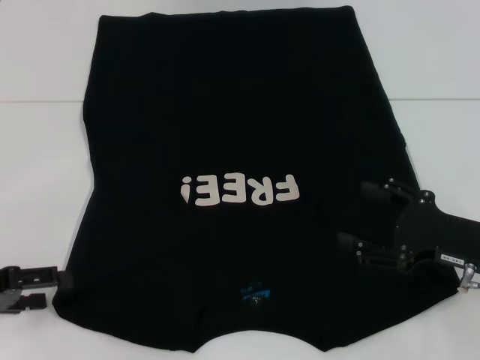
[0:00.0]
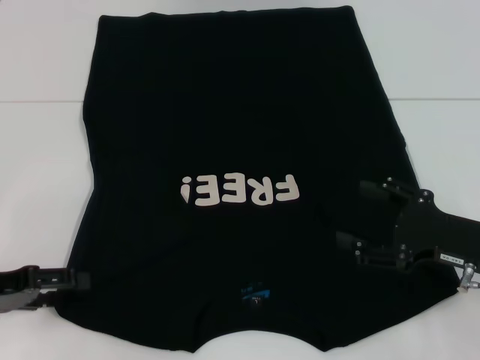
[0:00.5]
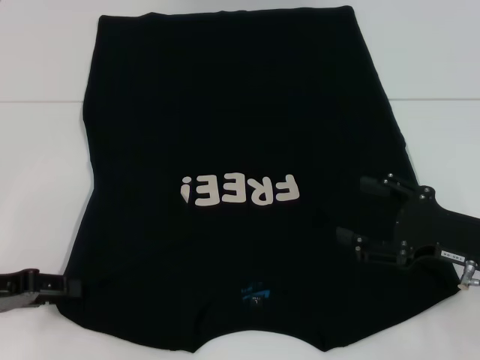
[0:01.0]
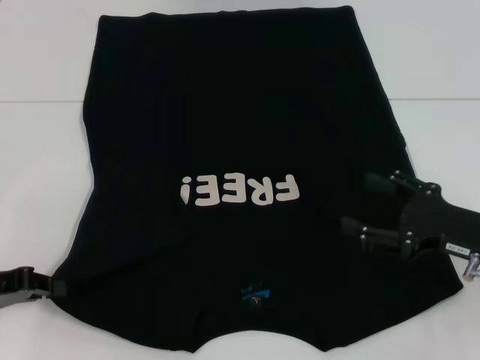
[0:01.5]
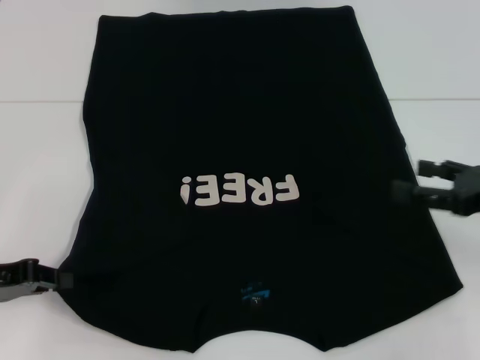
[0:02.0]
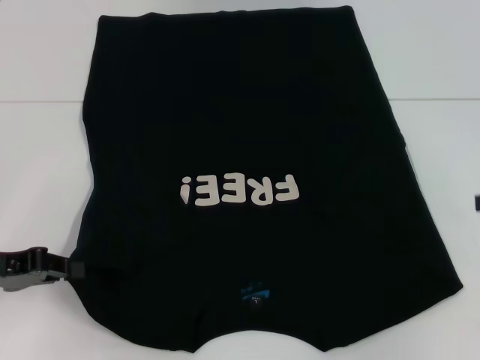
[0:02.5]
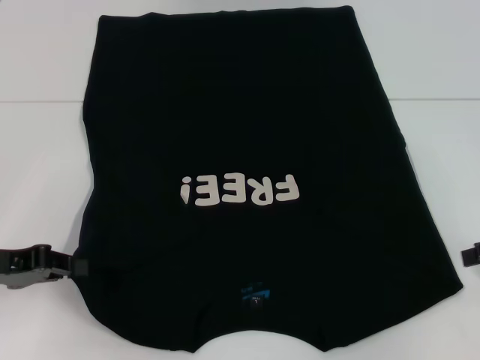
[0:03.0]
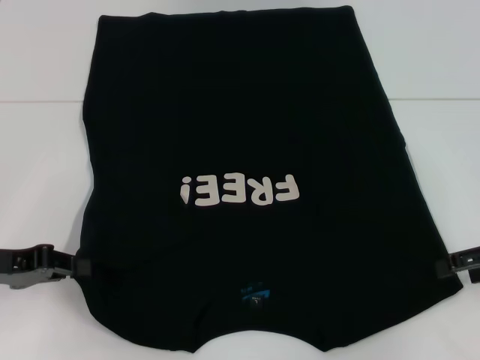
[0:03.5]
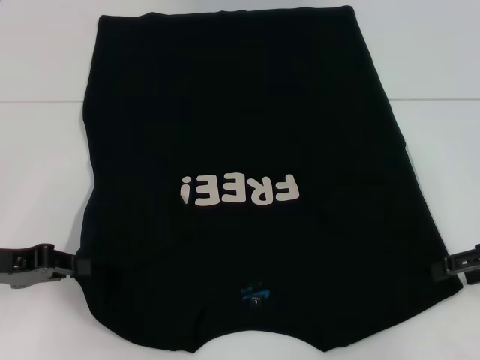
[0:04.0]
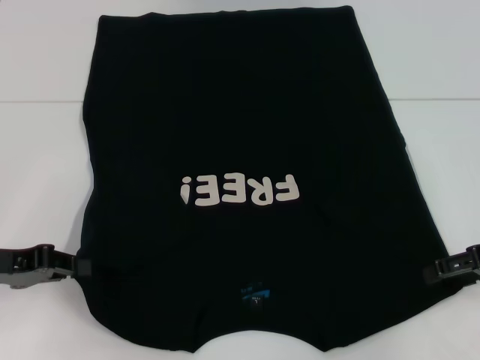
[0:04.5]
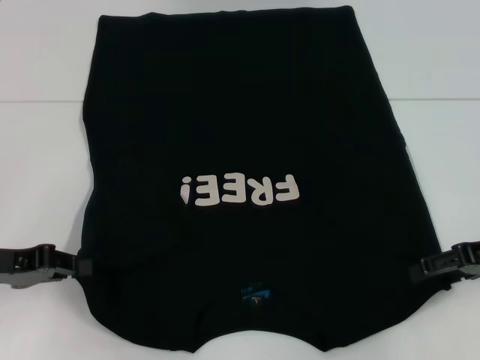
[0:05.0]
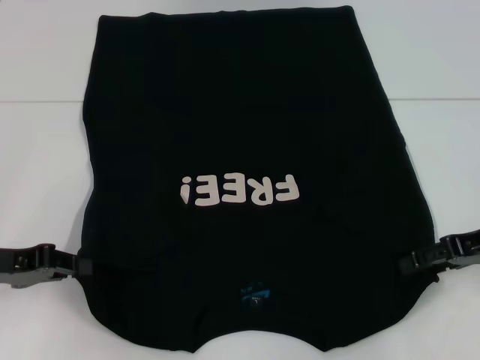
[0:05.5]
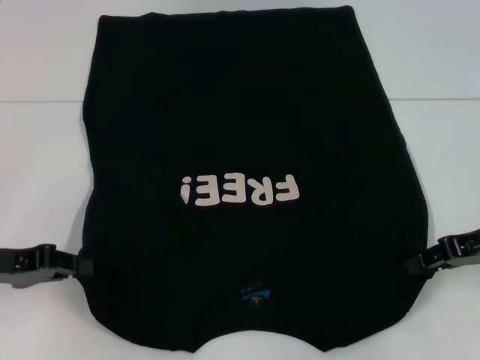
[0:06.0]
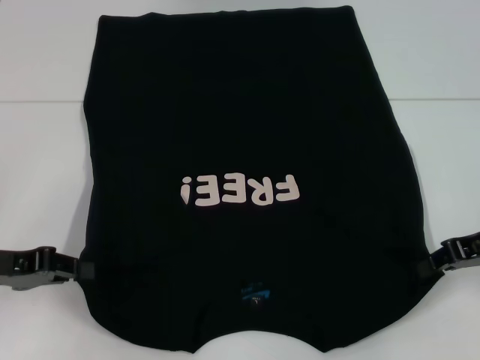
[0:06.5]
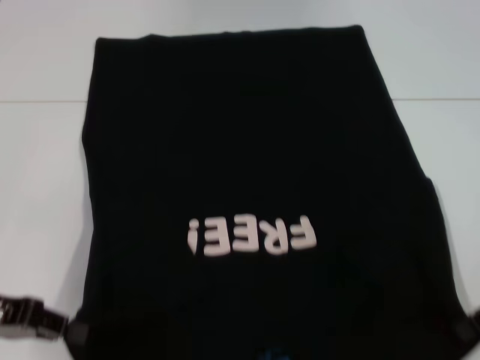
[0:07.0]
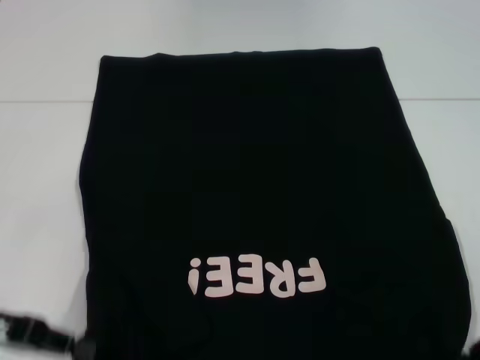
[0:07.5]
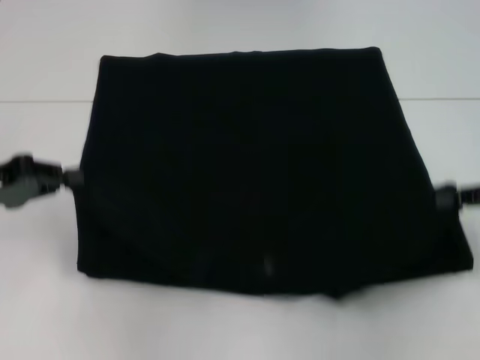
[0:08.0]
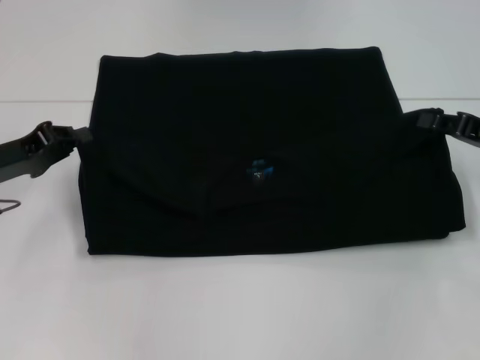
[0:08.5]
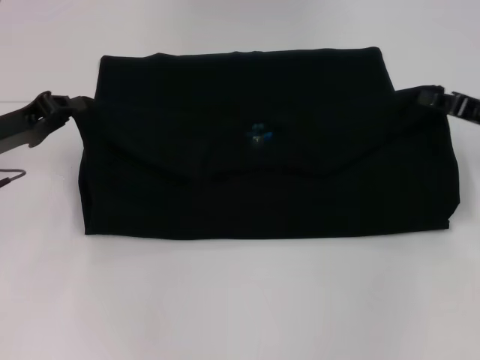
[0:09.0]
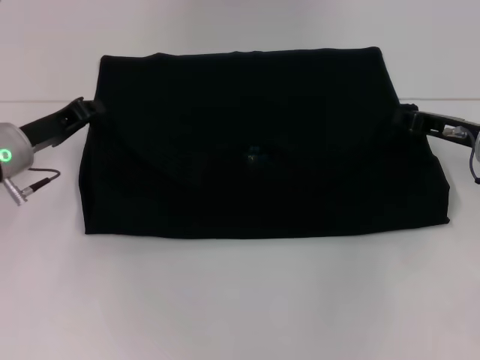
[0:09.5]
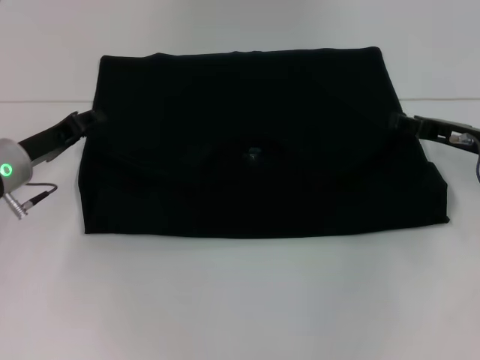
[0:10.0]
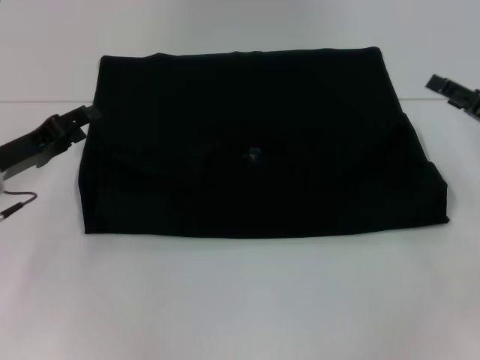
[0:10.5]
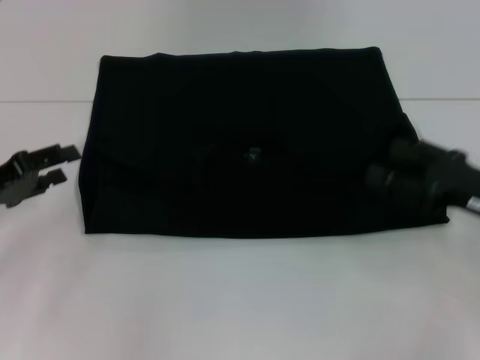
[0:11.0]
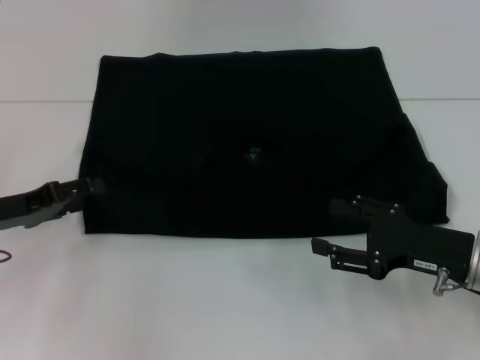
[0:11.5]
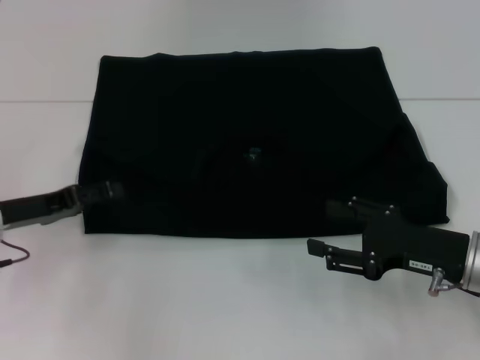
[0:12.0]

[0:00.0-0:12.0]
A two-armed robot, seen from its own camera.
Step, 0:02.0 to 0:06.5: Grab the bottom right corner with your right hand.
Step, 0:07.0 to 0:10.0: Fold the clothes with your left hand.
Step, 0:07.0 to 0:10.0: Fold the clothes with your right hand.
0:00.0 to 0:02.0: The left gripper closes its fingers. Meanwhile the right gripper shifts roughly 5 cm to the right.
0:04.0 to 0:06.0: The right gripper closes its fingers.
0:06.0 to 0:08.0: The left gripper ends up approximately 5 cm from where it was, while the right gripper shifts by approximately 5 cm, and closes.
0:08.0 to 0:10.0: The left gripper travels forward, to the right and downward by roughly 10 cm. Meanwhile the right gripper moves forward, to the left and downward, approximately 10 cm.
0:10.0 to 0:12.0: The right gripper goes roughly 10 cm backward, and opens. Meanwhile the left gripper goes about 5 cm backward, and opens its fingers.

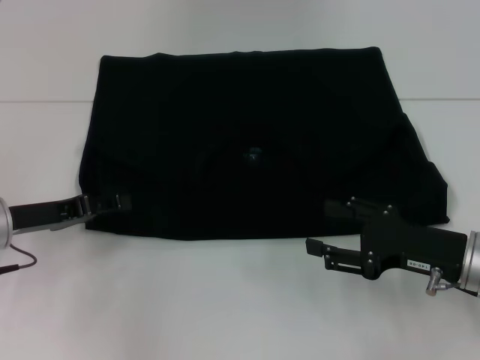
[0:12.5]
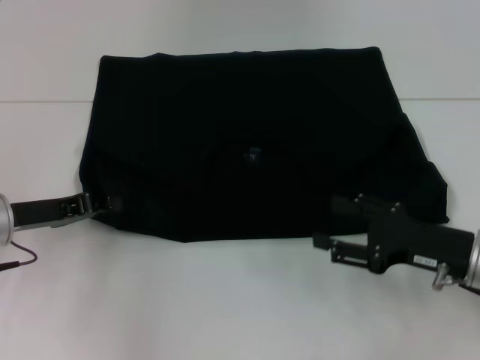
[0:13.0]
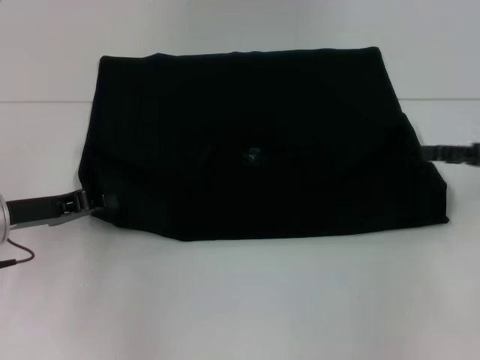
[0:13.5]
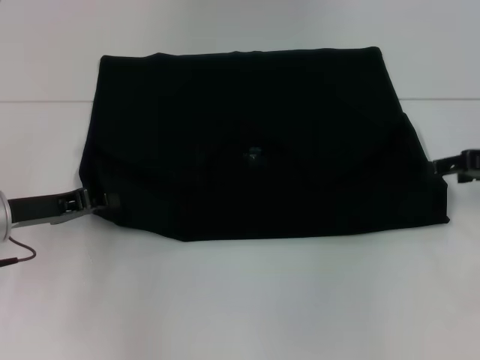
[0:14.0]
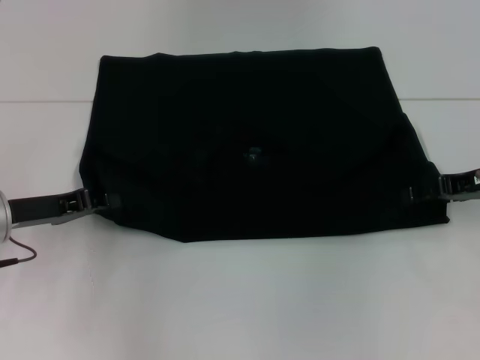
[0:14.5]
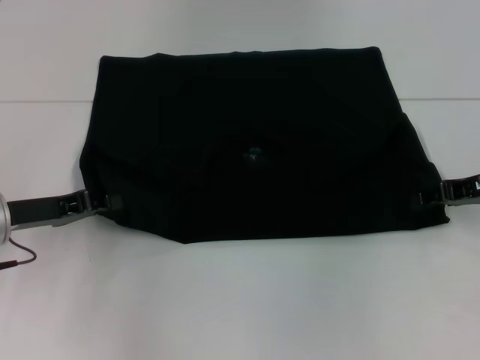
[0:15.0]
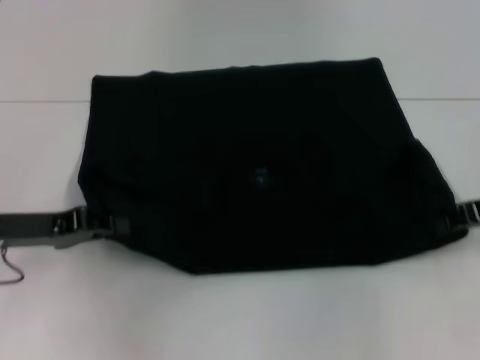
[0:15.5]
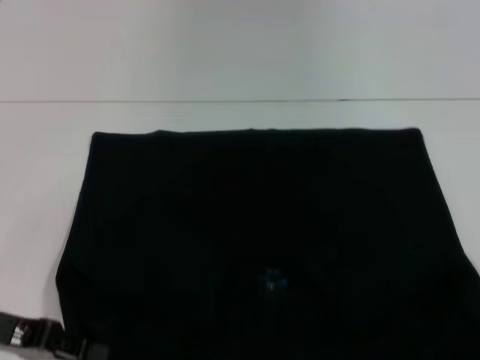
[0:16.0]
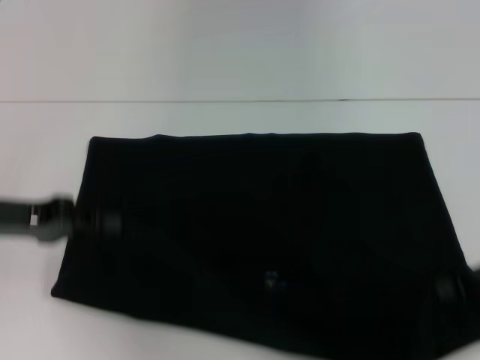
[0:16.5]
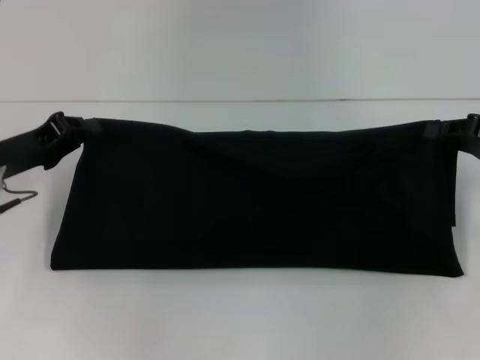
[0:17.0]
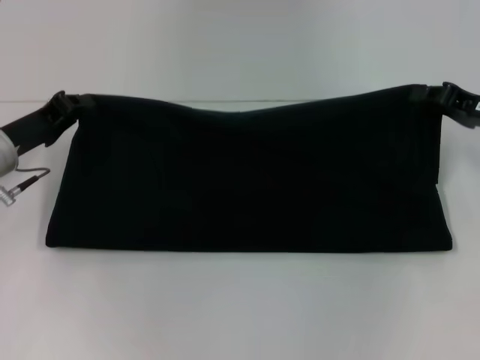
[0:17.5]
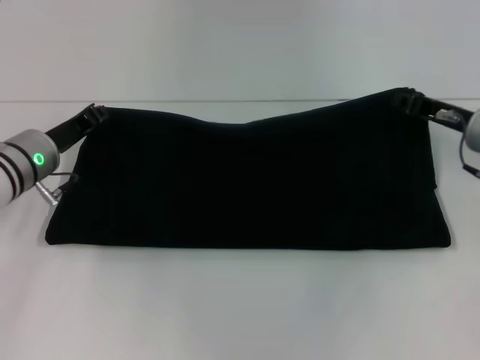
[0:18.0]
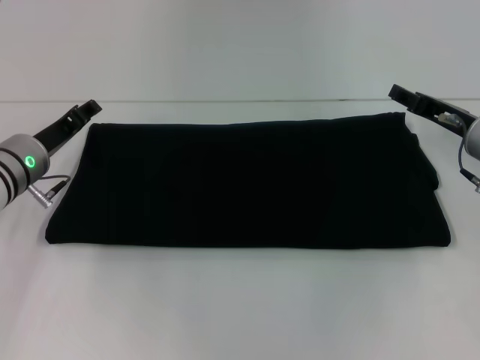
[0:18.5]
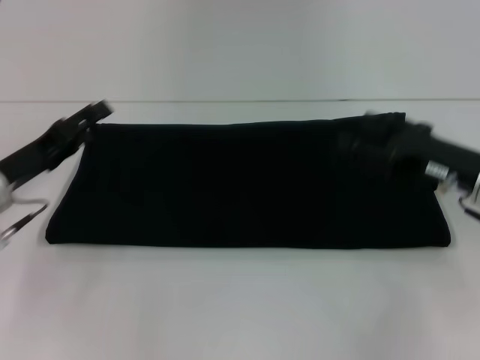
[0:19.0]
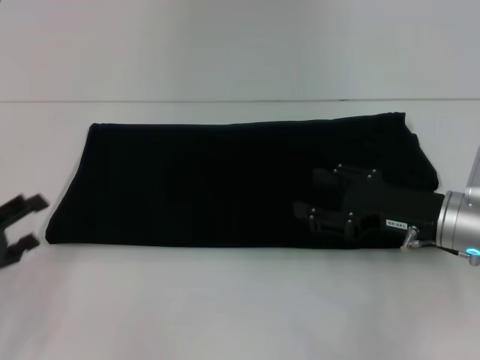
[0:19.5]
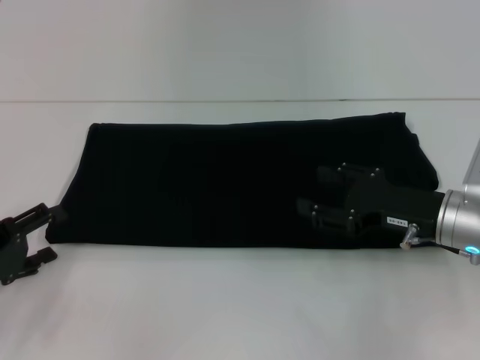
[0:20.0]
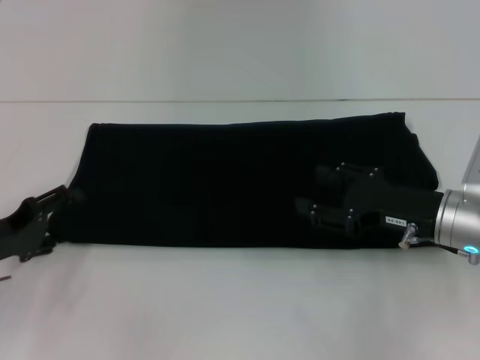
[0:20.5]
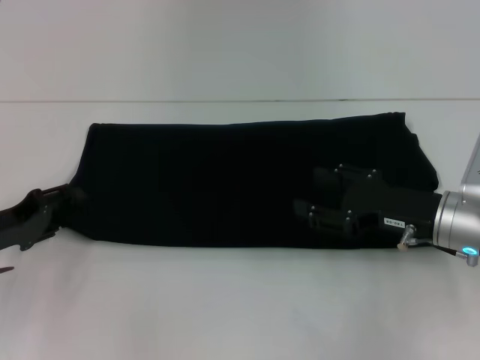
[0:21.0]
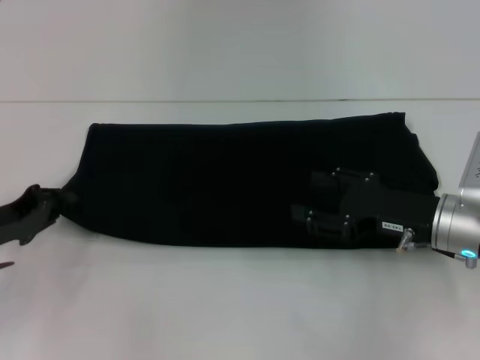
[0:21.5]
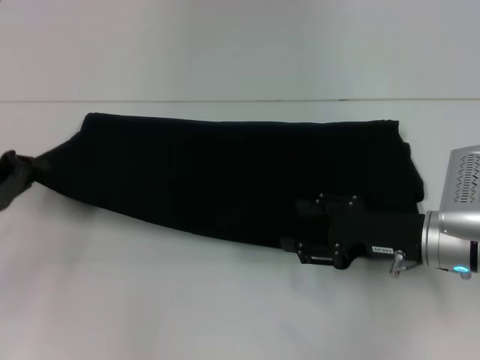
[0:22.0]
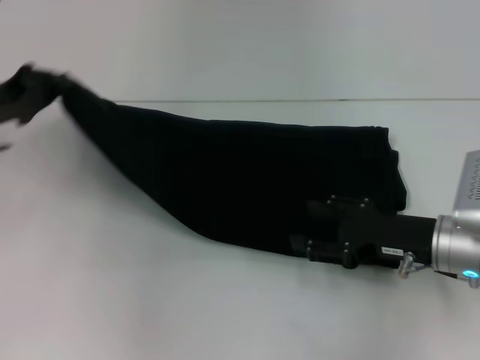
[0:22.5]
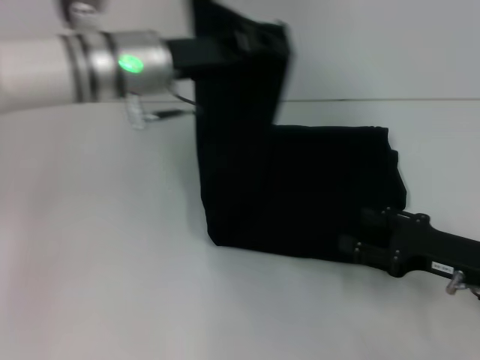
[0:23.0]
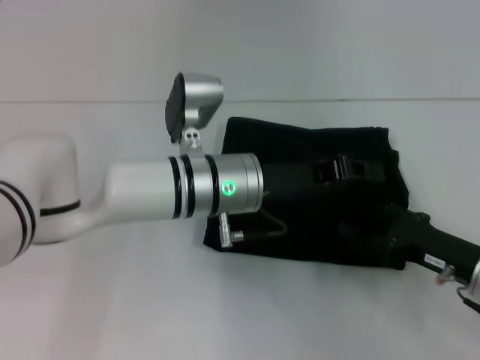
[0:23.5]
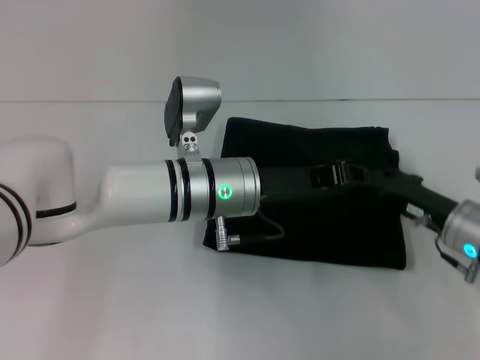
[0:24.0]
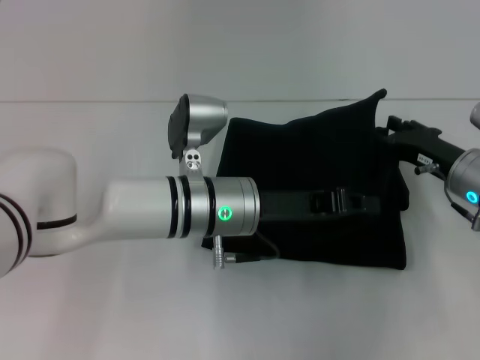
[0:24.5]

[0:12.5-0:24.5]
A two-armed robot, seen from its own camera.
Step, 0:12.5 to 0:16.0: Pull the clothes with your left hand.
Step, 0:12.5 to 0:16.0: Pull the clothes with your right hand.
Step, 0:16.5 to 0:18.0: Fold the clothes with your right hand.
0:12.5 to 0:14.5: The right gripper travels forward, to the right and upward by roughly 15 cm. The left gripper closes.
0:14.5 to 0:16.5: The left gripper shifts some 5 cm upward, and moves about 10 cm backward and comes back, while the right gripper goes some 10 cm backward, and closes.
0:16.5 to 0:18.5: The right gripper heads forward and to the left, covering about 10 cm, and opens. Meanwhile the left gripper travels forward, downward and to the right by roughly 10 cm, and opens up.
0:18.5 to 0:20.5: The left gripper shifts approximately 15 cm backward and to the left, and opens its fingers; the right gripper shifts about 10 cm backward.
0:20.5 to 0:22.5: The left gripper moves upward and forward, approximately 15 cm, and closes.
0:22.5 to 0:24.5: The right gripper moves forward, roughly 5 cm. The left gripper goes some 25 cm to the right.

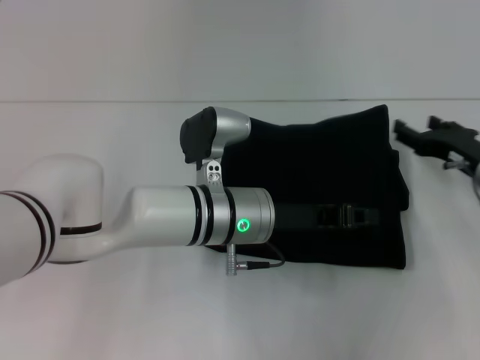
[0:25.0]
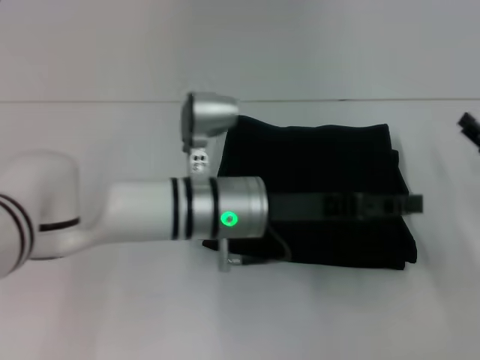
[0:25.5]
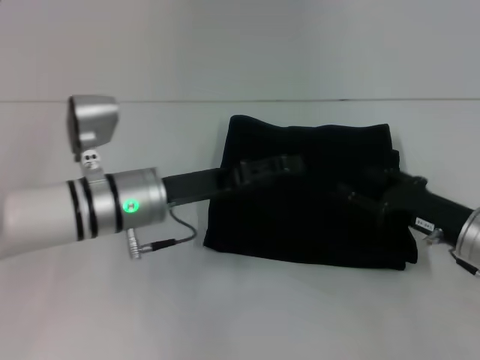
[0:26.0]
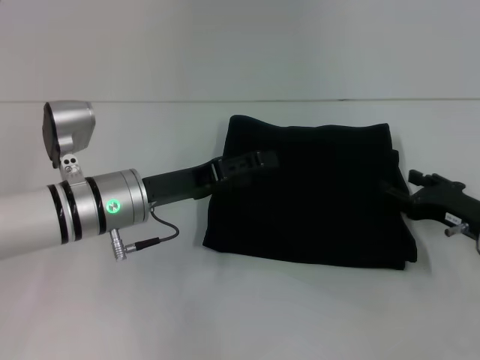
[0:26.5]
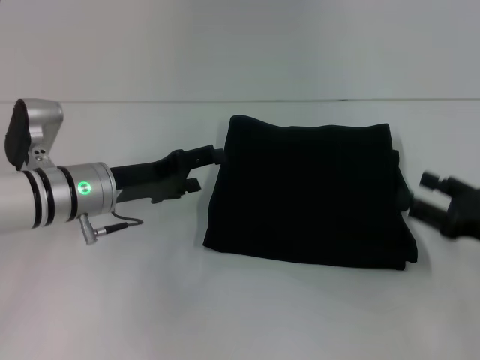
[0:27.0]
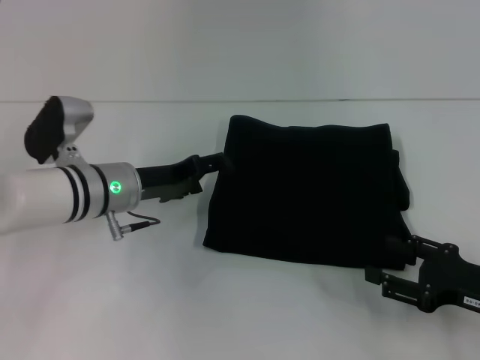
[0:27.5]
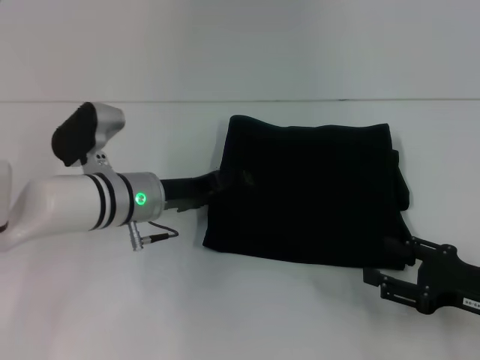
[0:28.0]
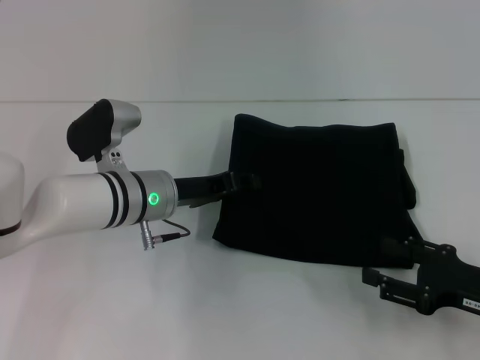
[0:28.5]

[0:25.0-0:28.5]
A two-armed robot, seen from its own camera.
0:25.0 to 0:27.0: The left gripper travels to the left by about 15 cm, and opens its fingers. Meanwhile the right gripper is displaced backward by some 10 cm.
0:27.0 to 0:28.5: The left gripper heads to the right, covering some 5 cm.
